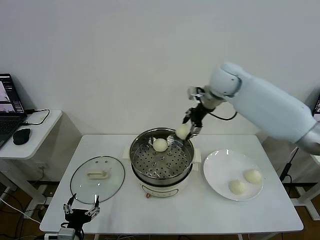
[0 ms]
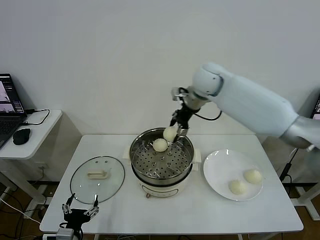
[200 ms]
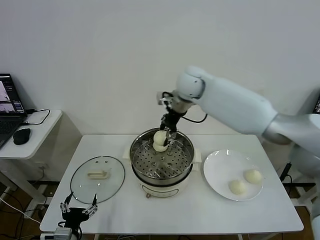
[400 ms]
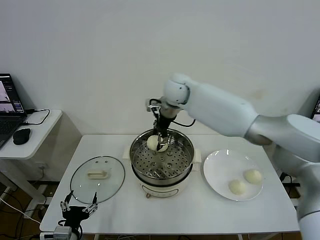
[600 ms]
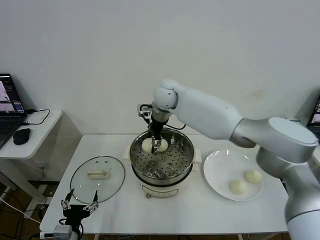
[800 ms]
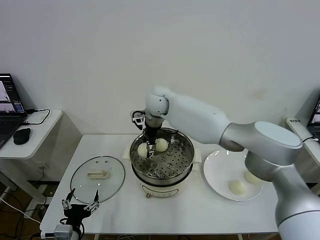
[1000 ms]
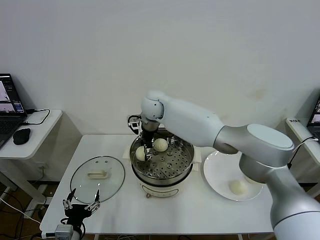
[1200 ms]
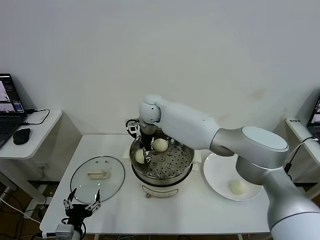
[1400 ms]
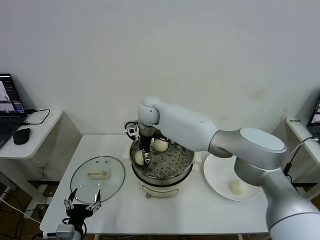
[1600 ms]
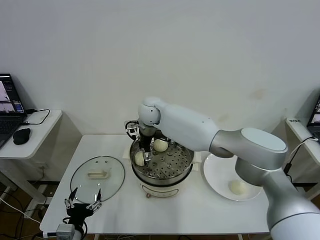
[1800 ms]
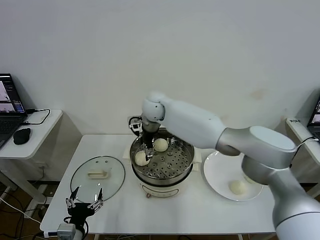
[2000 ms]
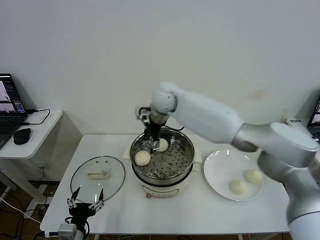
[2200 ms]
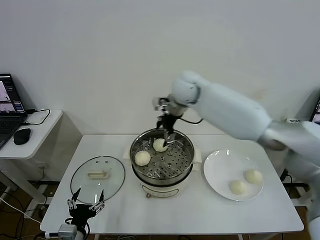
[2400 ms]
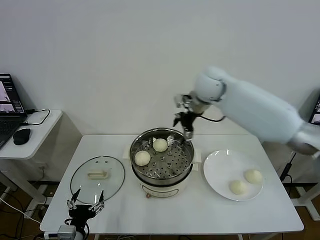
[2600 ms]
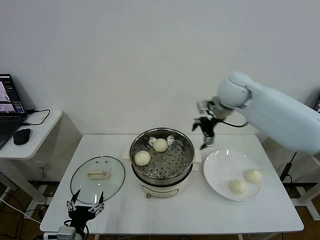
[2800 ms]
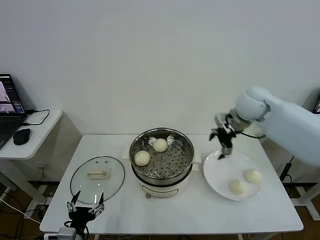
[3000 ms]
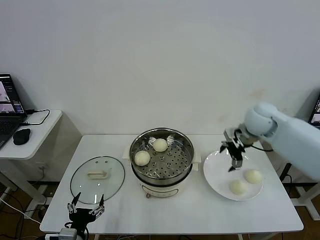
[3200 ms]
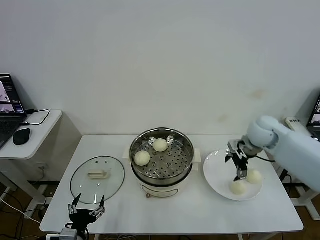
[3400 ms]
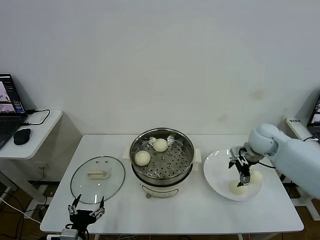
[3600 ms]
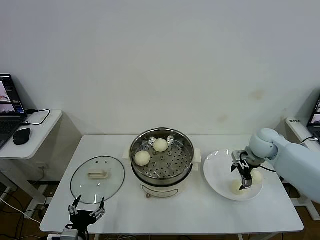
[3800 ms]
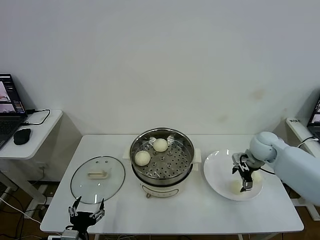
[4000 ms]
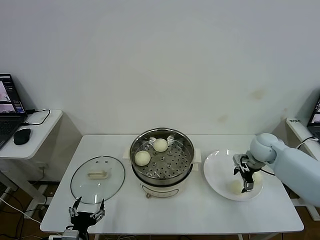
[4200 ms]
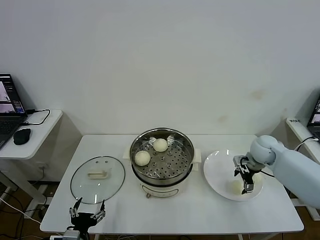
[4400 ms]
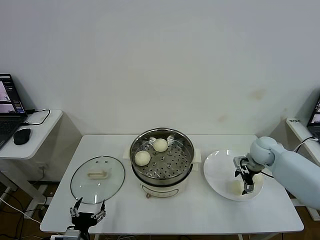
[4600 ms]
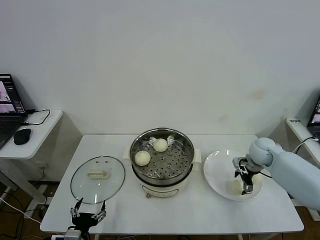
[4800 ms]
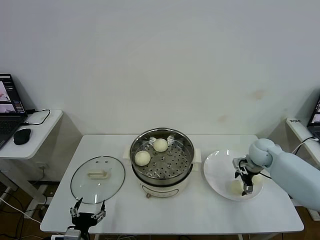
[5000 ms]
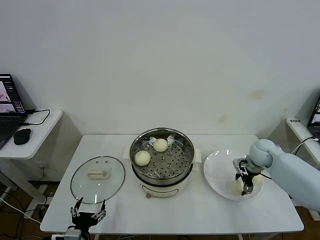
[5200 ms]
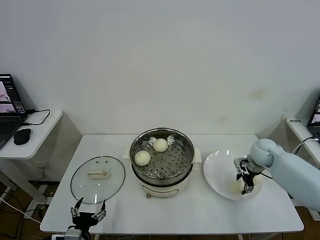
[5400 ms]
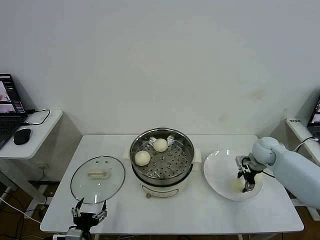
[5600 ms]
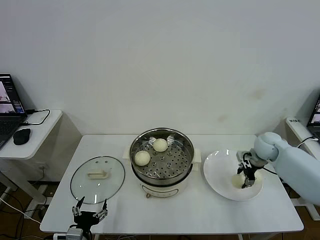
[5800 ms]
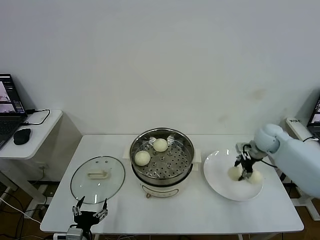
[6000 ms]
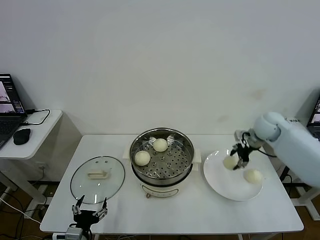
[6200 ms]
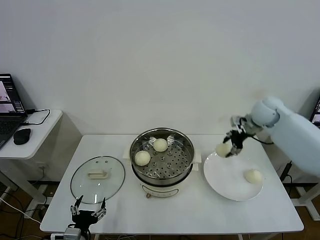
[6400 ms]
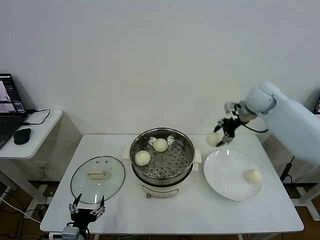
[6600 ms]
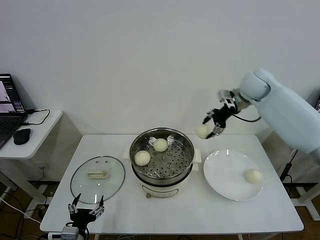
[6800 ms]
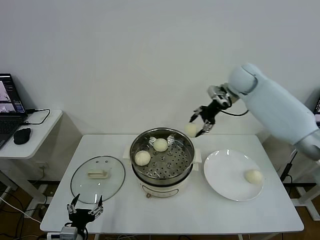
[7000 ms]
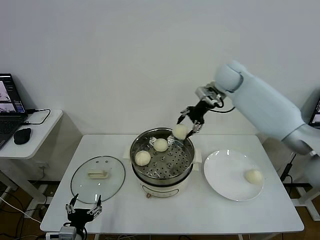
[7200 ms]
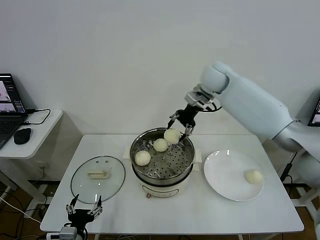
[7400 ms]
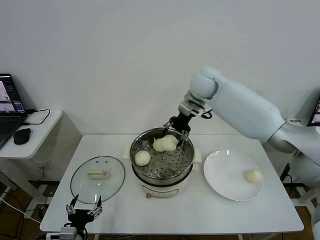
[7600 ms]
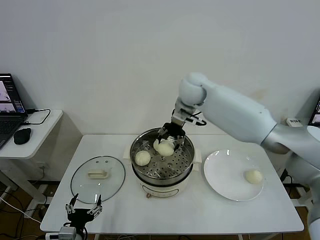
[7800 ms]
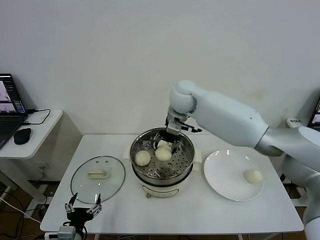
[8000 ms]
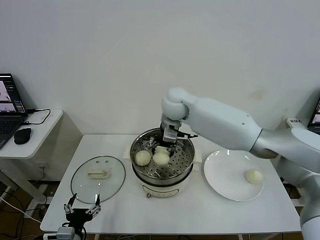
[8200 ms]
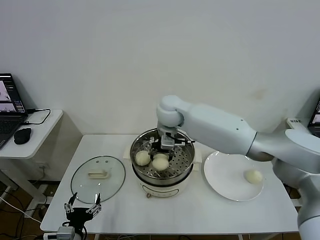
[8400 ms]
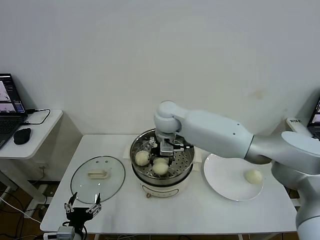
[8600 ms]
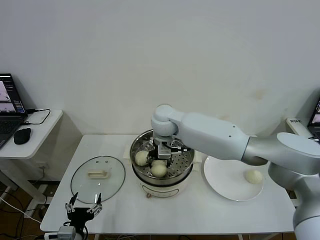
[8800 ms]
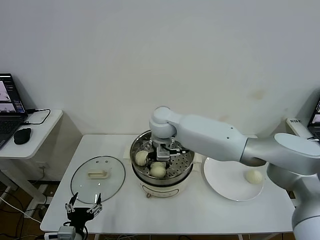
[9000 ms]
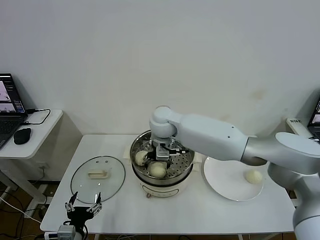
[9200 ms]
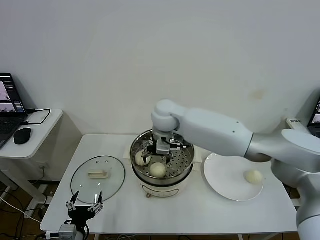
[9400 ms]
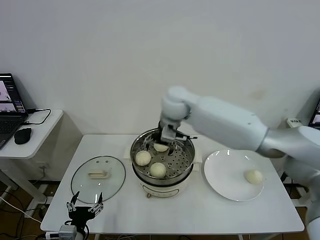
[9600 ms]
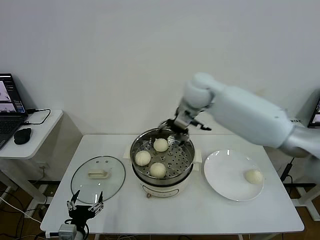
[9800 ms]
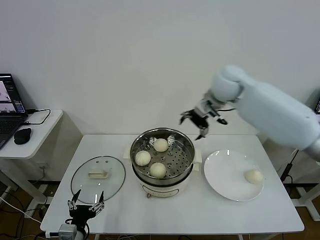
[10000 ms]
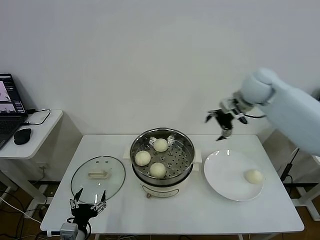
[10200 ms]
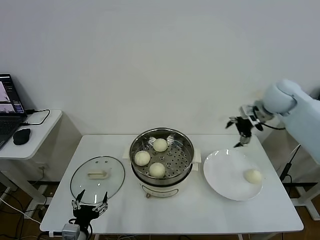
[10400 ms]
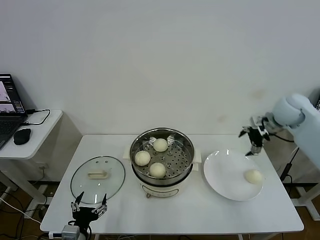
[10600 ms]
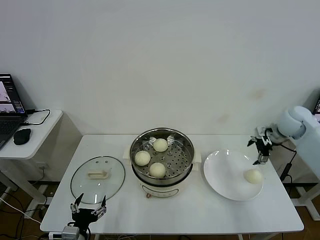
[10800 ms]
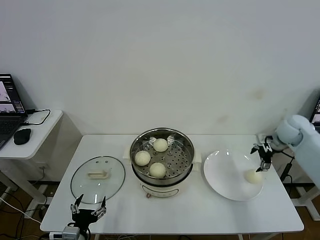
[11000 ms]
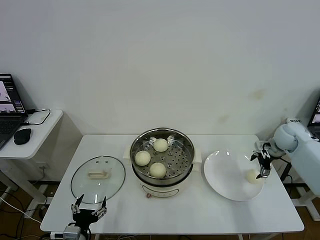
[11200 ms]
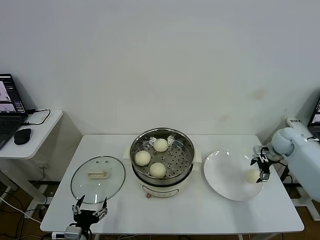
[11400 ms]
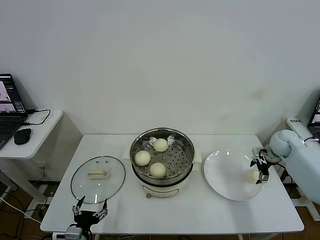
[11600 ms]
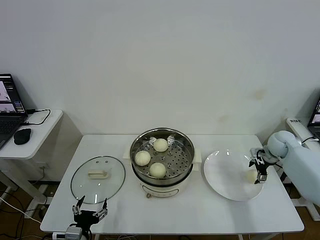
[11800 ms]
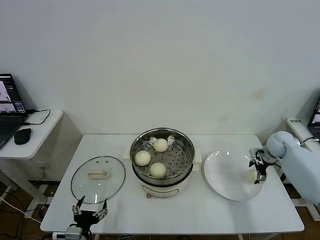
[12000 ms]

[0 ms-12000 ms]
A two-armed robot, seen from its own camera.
Step, 0 ms to 1800 ms: Place the baozi on the steamer with right gripper.
Step, 2200 ms to 5200 ms: Grasp the baozi in the plate with right gripper.
Step, 5400 ms to 9200 ms: Place the baozi on the steamer with right gripper.
0 ms to 1600 ms: The right gripper travels to the left and downward by some 25 cm.
1600 ms to 3000 ms: The right gripper heads to the right, covering some 35 cm, and opens its fingers.
3000 ms to 4400 ms: The right gripper heads downward and to the right, covering some 20 cm.
4400 ms to 6000 ms: The right gripper shifts by roughly 5 cm, and closes.
6000 ms to 7600 ms: The right gripper shifts some 30 cm to the left and upward.
7600 ms to 9000 ms: The right gripper shifts some 15 cm to the left, downward and backward.
9000 ms to 10400 ms: The right gripper moves to the right, some 35 cm, and opens.
10400 ms to 12000 ms: The right gripper is displaced downward and to the right by roughly 25 cm.

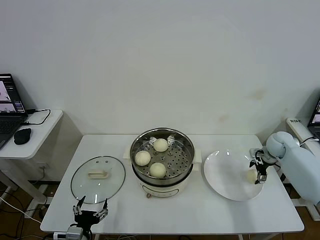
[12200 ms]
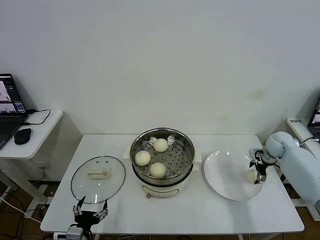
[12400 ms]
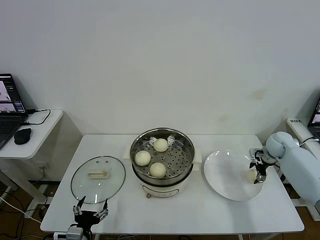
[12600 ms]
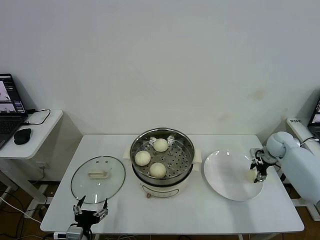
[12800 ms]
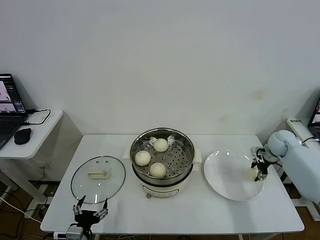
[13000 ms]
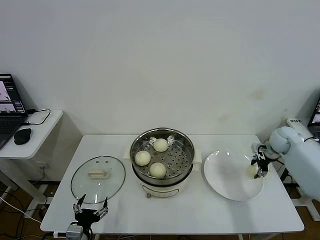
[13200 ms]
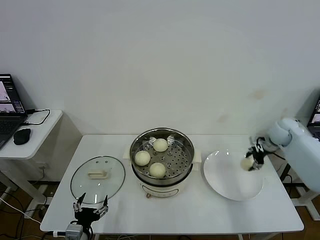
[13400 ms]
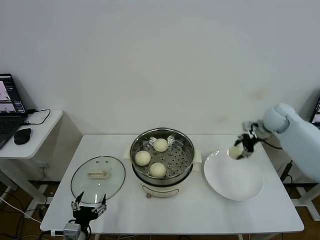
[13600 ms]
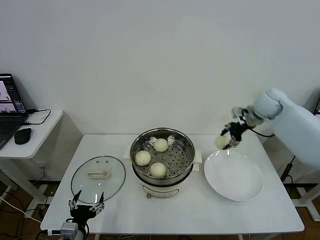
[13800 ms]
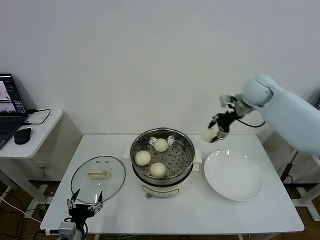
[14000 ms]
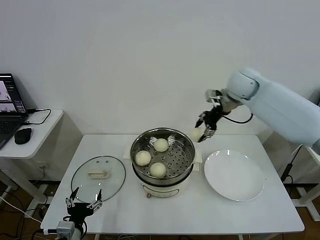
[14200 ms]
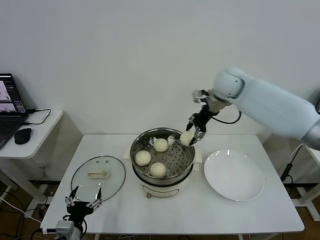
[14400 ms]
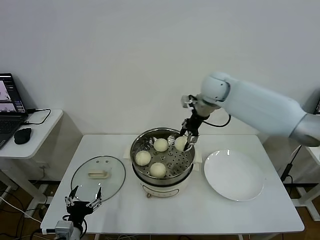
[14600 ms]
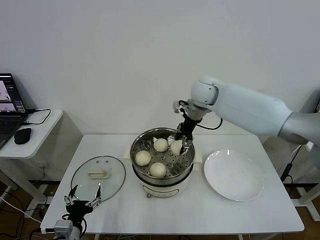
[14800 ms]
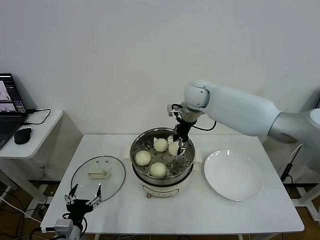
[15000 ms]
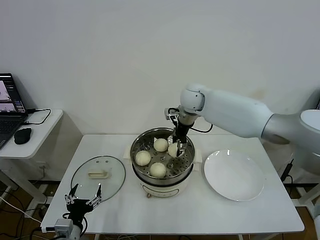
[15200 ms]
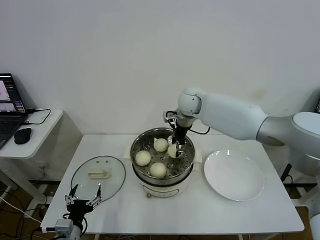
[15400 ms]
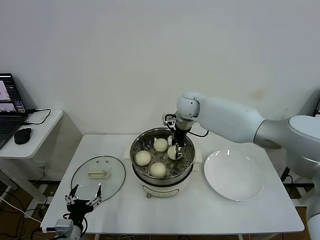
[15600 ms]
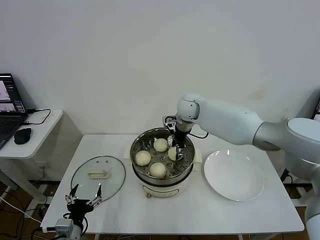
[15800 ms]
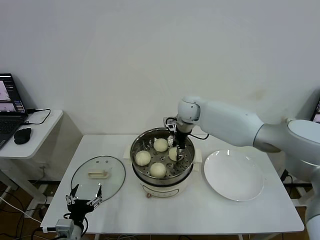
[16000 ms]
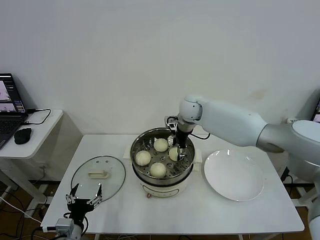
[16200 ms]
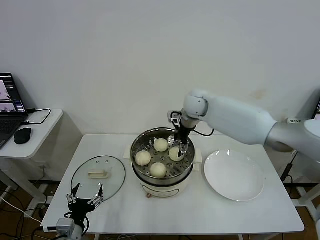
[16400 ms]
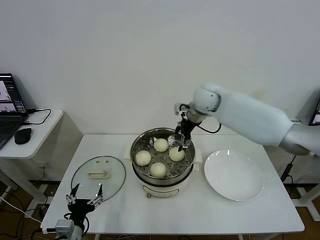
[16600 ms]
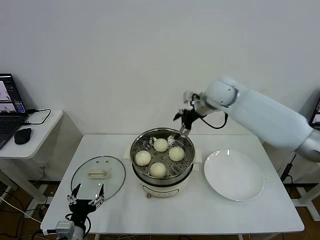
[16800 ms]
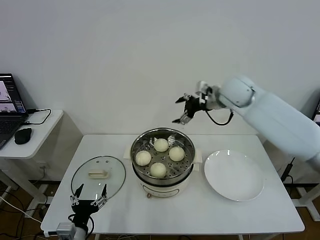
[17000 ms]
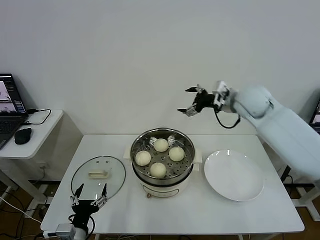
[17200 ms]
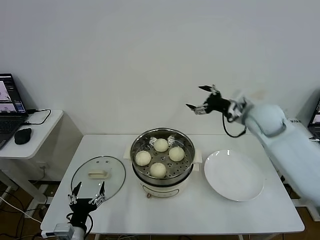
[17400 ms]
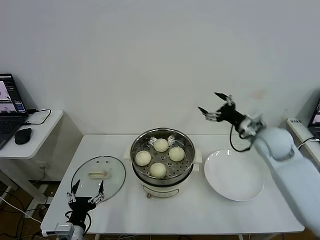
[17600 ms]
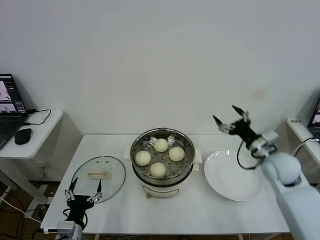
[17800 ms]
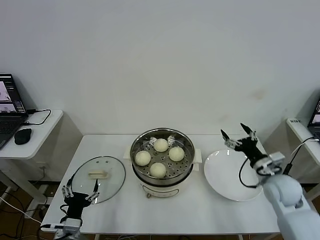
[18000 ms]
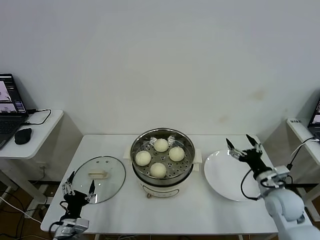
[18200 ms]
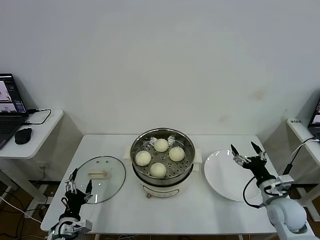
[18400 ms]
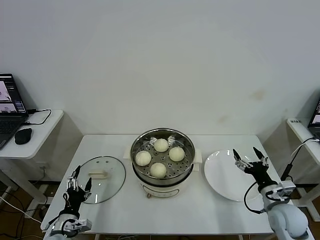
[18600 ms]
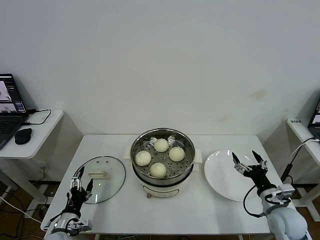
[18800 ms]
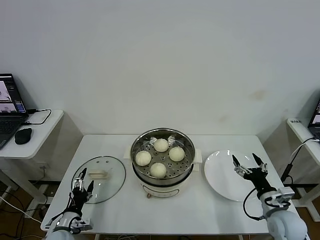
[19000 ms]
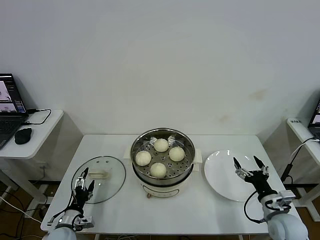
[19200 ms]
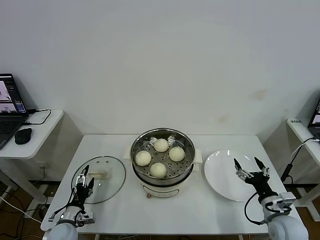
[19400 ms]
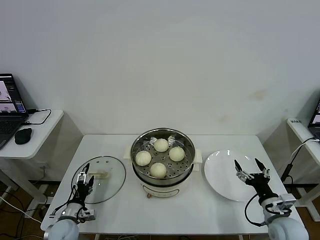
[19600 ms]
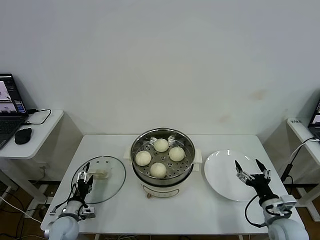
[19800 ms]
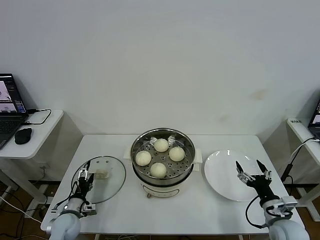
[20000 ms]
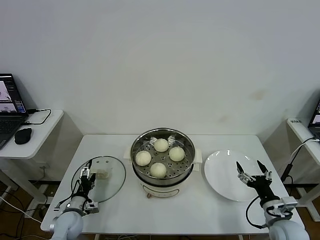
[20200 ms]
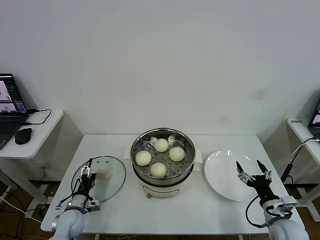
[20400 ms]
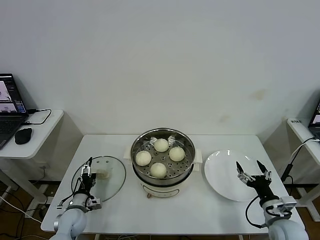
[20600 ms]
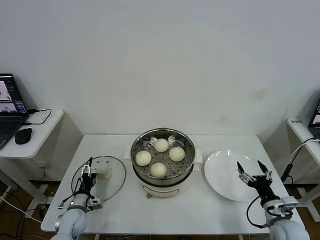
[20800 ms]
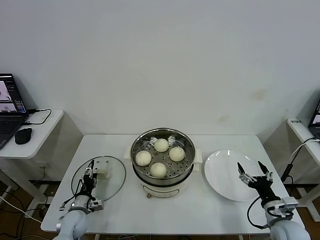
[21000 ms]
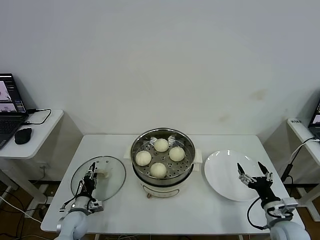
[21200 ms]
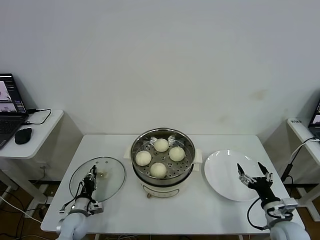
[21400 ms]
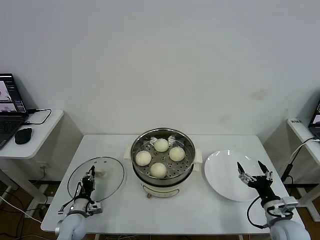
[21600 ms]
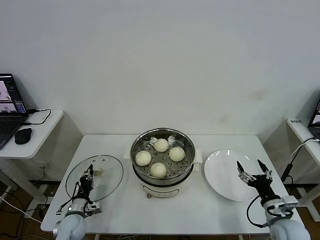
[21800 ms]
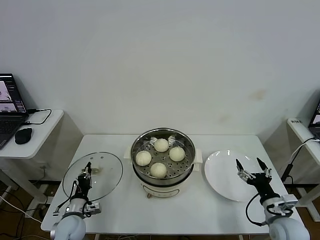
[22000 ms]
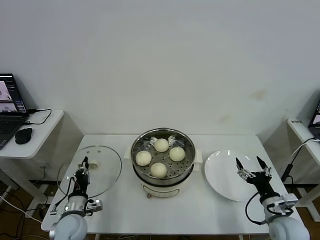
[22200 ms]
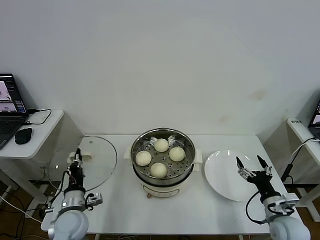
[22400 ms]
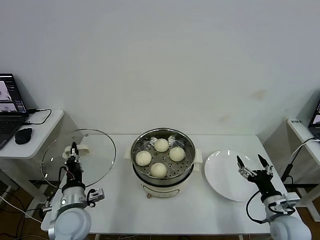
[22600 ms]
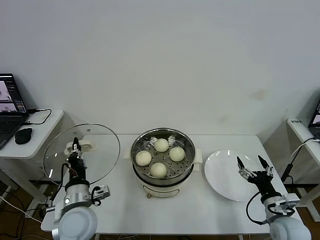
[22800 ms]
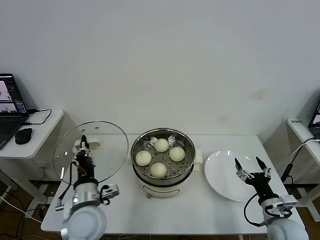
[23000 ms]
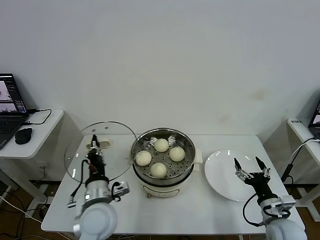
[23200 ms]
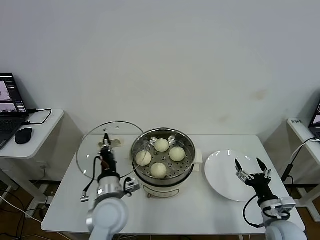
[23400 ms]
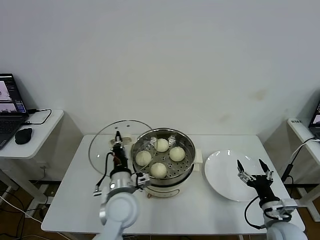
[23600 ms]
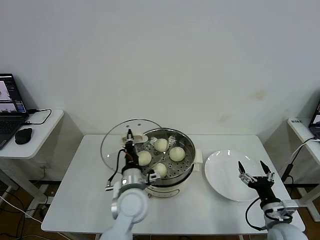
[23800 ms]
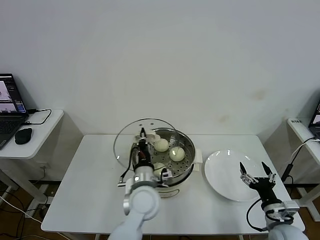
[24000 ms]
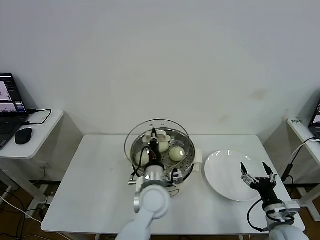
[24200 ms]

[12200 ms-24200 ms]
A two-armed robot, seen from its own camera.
Step, 13200 ms to 16400 ms: Place the baozi on the steamer with right gripper.
Step, 16600 ms to 21600 ms: Grasp the pot lid with left gripper.
12200 ms to 13800 ms: The right gripper moves upward and to the left, some 20 cm, and closes its fingers.
13800 ms to 15200 ms: The right gripper is displaced to the left by about 25 cm.
15200 ms to 16600 ms: The right gripper opens its fingers.
16600 ms to 18200 ms: The right gripper is displaced backward, to the right and downward by some 40 cm.
18200 ms to 19800 ms: The right gripper goes some 10 cm backward. Meanwhile the left gripper moves forward, downward and to the left, roughly 15 cm.
19800 ms to 21200 ms: The left gripper closes.
21200 ms to 22600 ms: The left gripper shifts about 15 cm upward and to the right, and closes.
22600 ms to 24200 ms: The left gripper moves to the right, about 25 cm.
